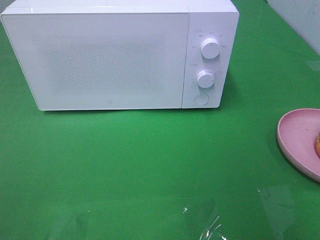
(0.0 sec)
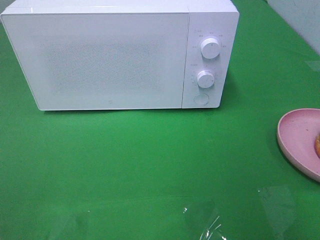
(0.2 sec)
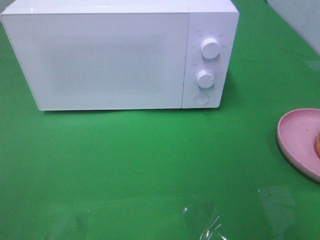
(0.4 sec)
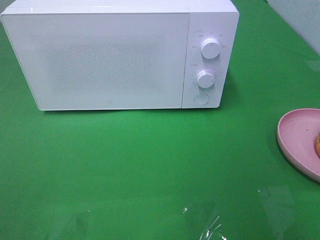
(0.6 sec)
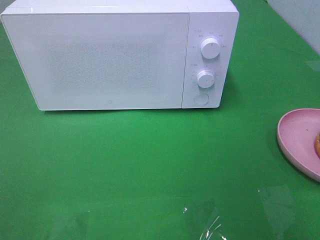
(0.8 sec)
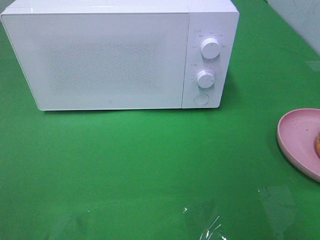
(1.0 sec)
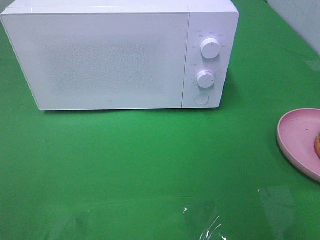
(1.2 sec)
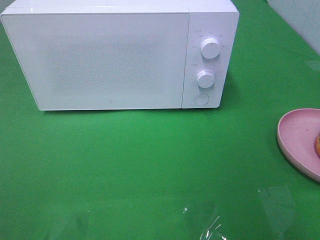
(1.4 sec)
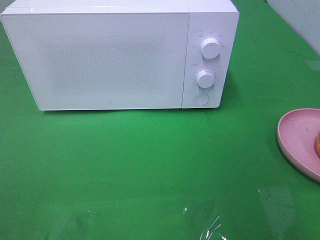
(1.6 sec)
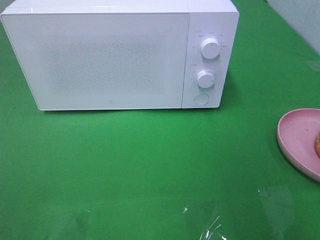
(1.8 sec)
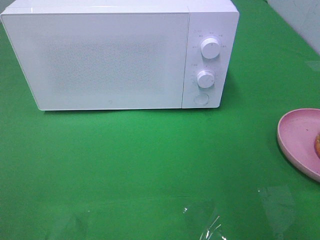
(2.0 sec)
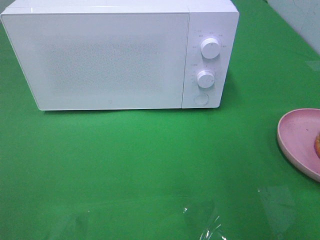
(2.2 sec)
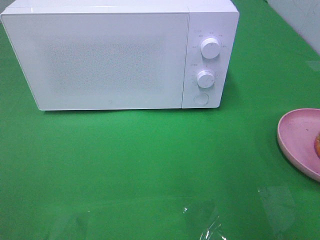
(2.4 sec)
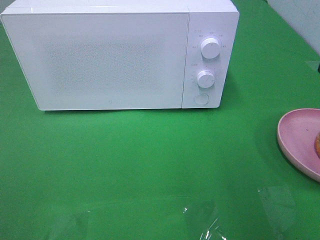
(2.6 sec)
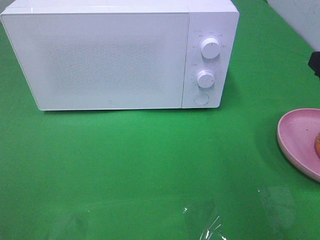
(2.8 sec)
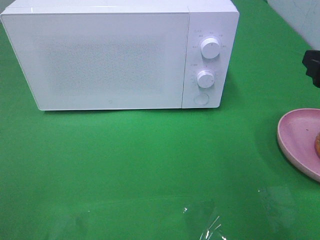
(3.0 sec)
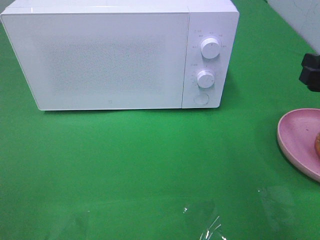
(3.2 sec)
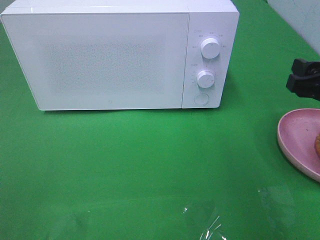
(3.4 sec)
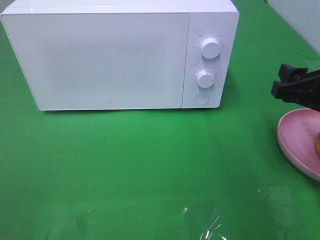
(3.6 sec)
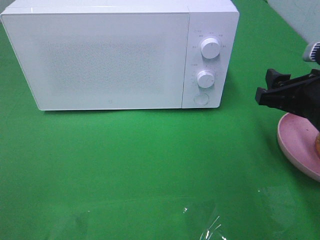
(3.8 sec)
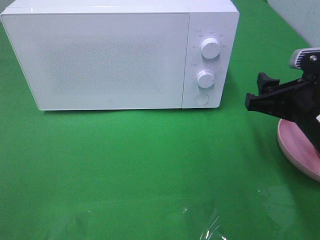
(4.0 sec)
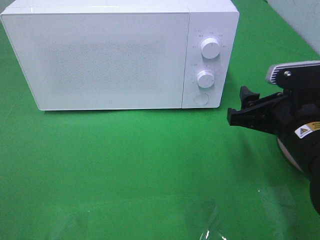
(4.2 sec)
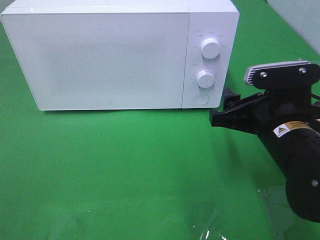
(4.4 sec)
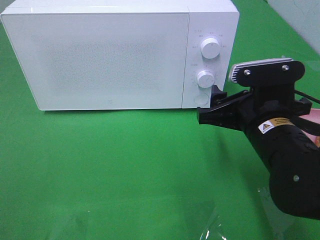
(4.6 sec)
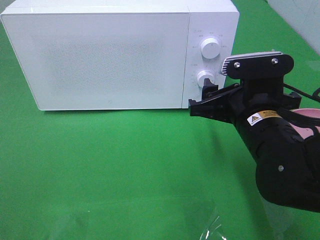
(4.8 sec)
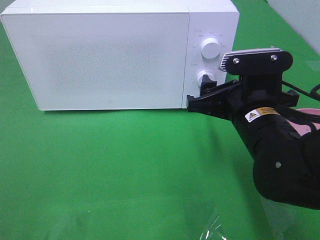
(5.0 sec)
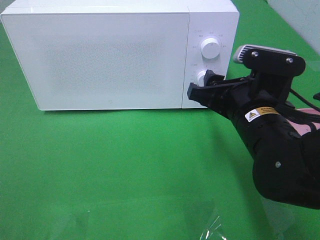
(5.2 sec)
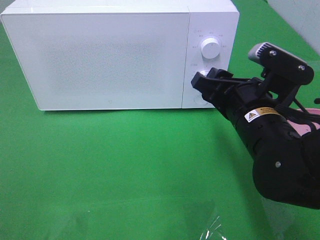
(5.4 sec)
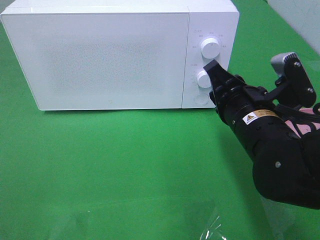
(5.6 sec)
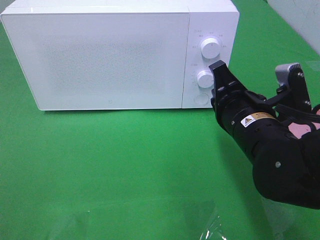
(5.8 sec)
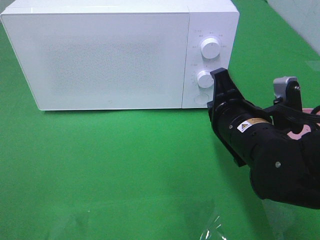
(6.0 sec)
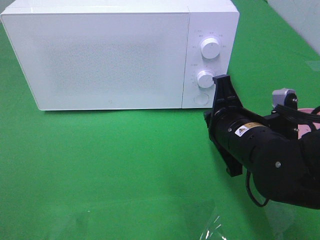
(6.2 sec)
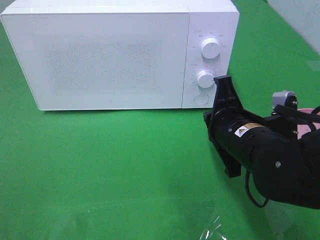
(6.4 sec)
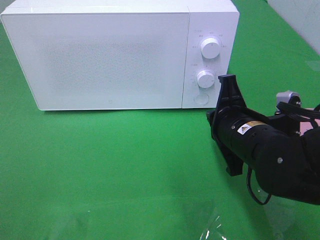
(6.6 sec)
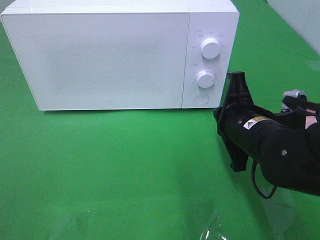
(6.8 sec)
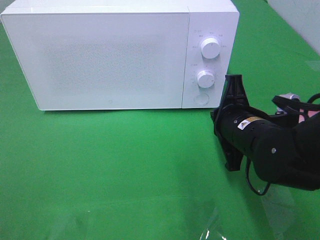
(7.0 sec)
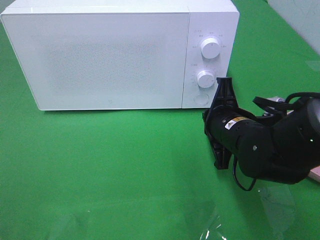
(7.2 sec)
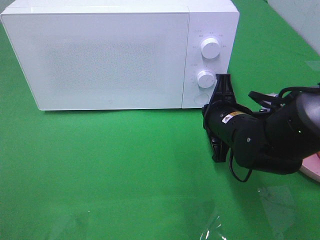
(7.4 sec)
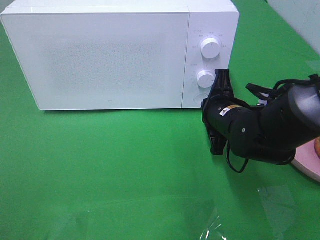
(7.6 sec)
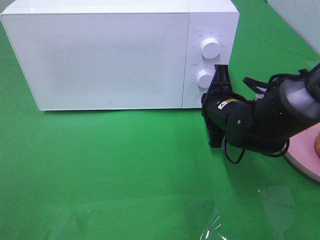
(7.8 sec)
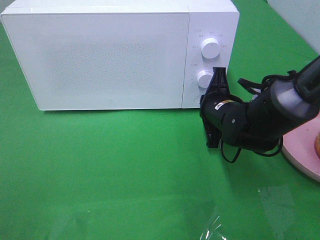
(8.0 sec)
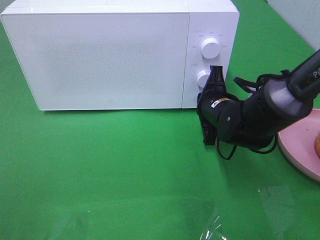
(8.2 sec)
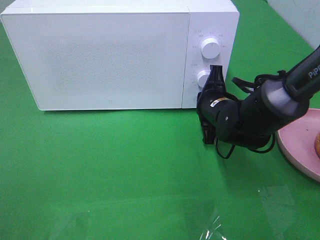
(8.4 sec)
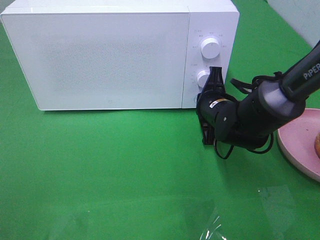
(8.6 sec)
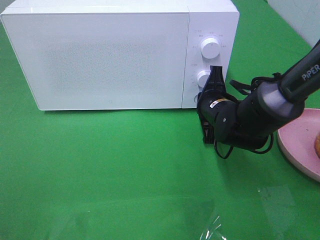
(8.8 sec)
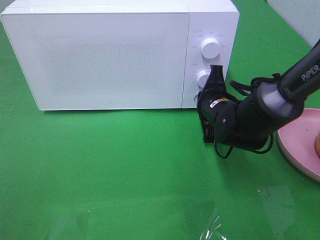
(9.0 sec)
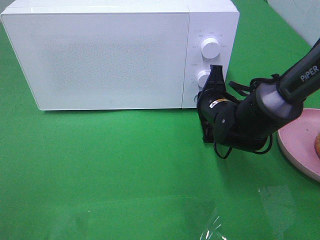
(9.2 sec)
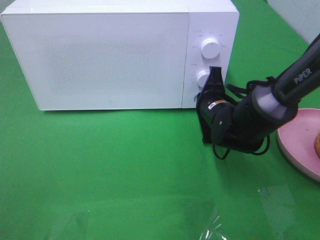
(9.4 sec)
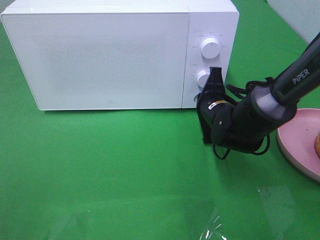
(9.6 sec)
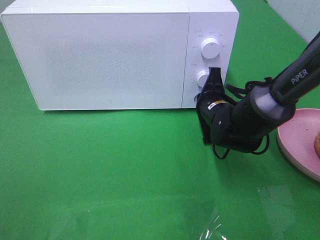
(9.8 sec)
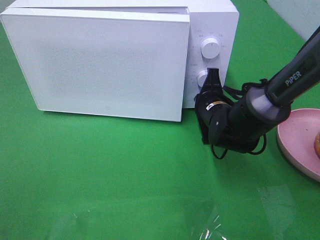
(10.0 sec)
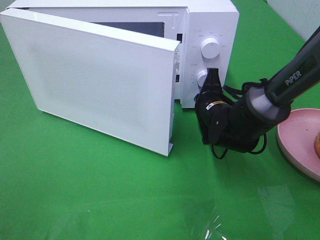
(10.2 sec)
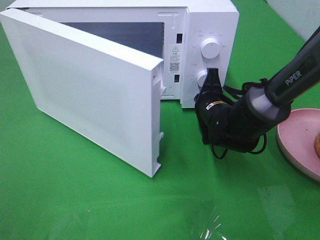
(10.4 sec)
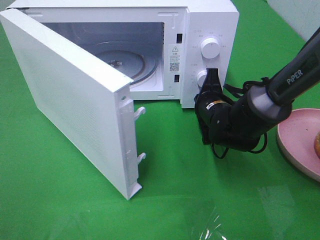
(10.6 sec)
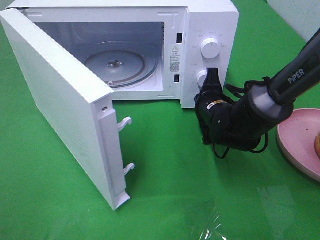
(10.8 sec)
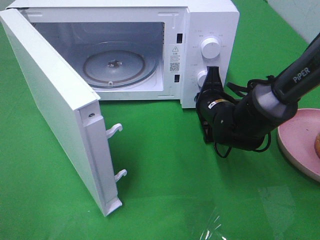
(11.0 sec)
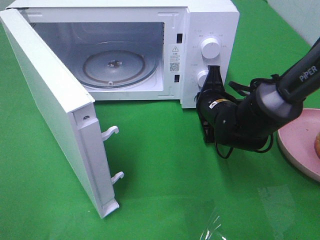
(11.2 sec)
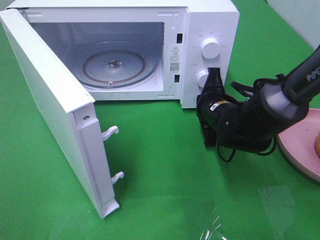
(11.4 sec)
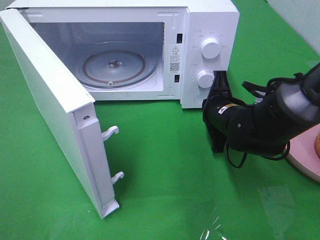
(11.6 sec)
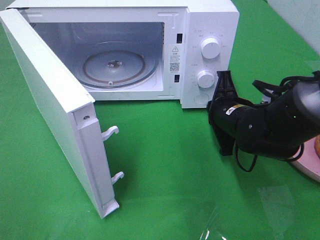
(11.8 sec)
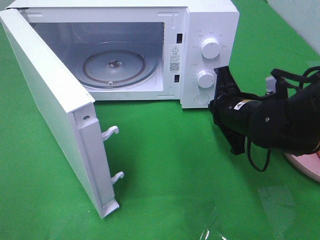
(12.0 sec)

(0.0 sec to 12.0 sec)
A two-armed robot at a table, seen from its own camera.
Task of the whole recording: Heat the burger.
Step, 0.0 sec - 12.0 sec: Right hand: press the switch.
1.6 sec - 3.0 sec: The right gripper is displaced forward and downward by about 15 cm.
3.0 sec - 4.4 sec: The right gripper heads to the left and downward, covering about 15 cm.
4.4 sec - 6.0 sec: The right gripper closes up.
6.0 sec - 7.6 sec: The right gripper goes some 5 cm forward.
7.6 sec - 9.0 sec: The grippers make only small movements.
10.4 sec - 12.0 sec: The right gripper travels backward and upward by roughly 10 cm.

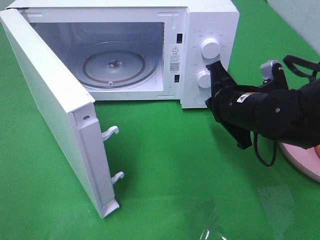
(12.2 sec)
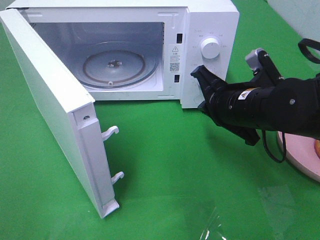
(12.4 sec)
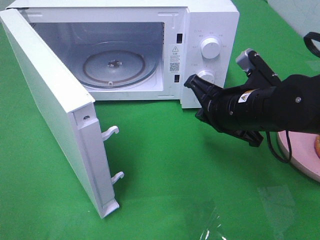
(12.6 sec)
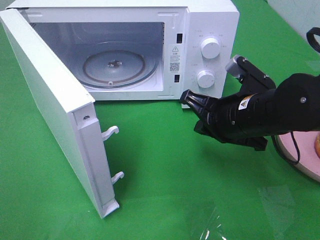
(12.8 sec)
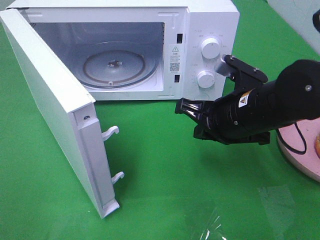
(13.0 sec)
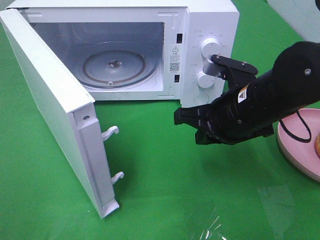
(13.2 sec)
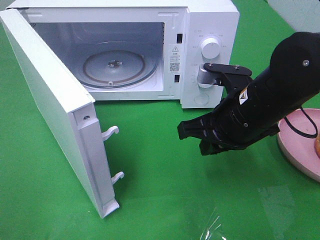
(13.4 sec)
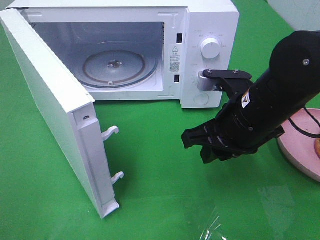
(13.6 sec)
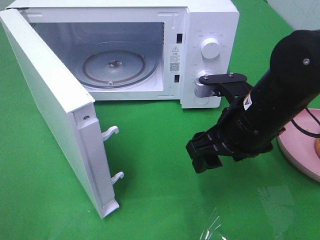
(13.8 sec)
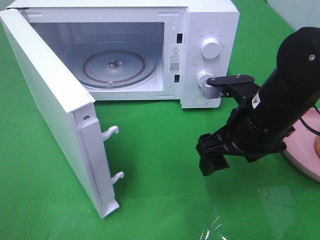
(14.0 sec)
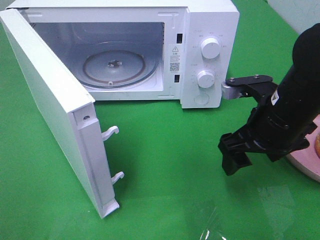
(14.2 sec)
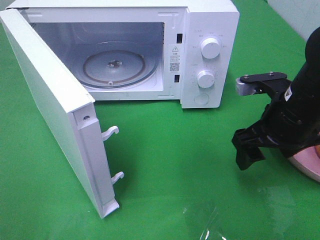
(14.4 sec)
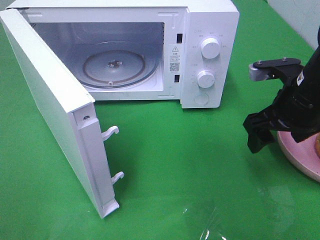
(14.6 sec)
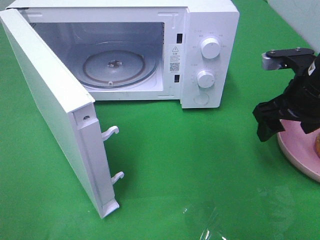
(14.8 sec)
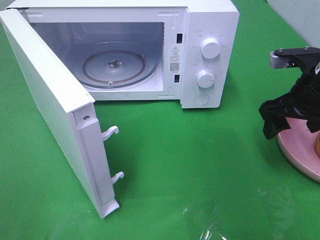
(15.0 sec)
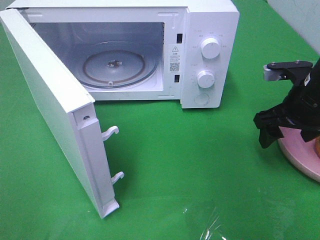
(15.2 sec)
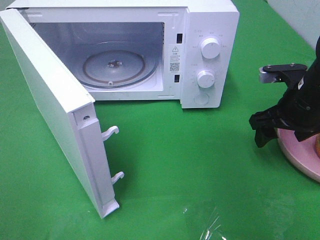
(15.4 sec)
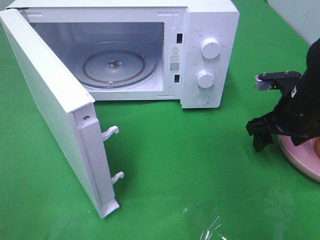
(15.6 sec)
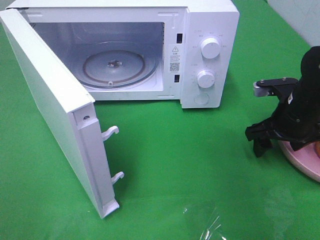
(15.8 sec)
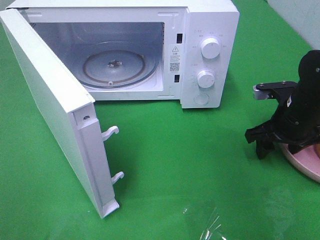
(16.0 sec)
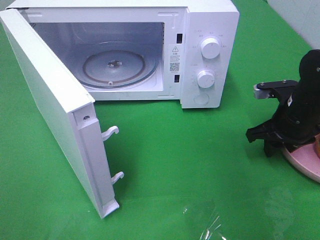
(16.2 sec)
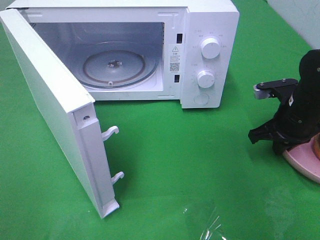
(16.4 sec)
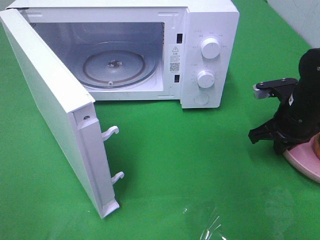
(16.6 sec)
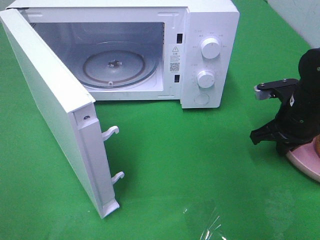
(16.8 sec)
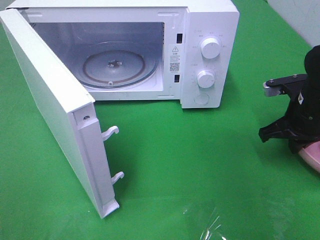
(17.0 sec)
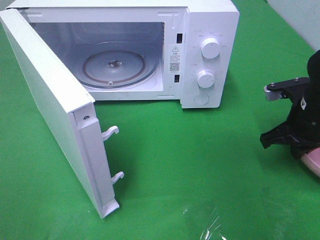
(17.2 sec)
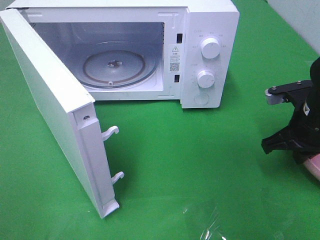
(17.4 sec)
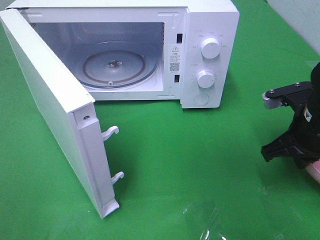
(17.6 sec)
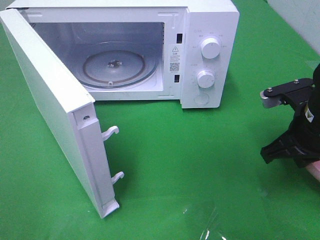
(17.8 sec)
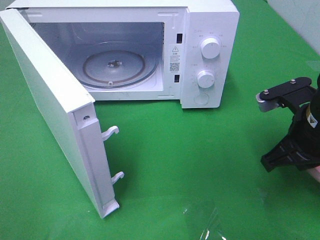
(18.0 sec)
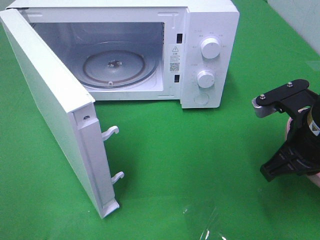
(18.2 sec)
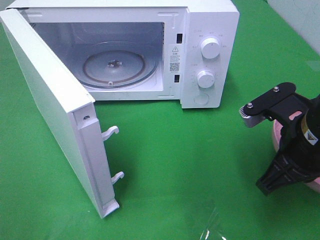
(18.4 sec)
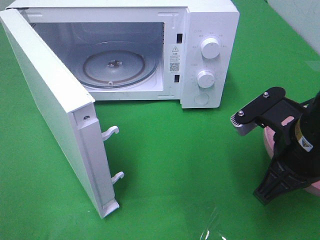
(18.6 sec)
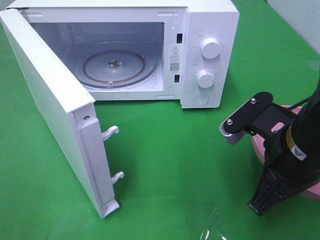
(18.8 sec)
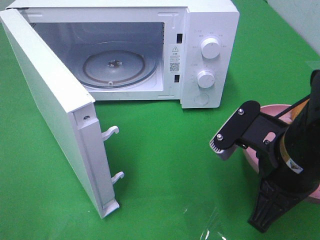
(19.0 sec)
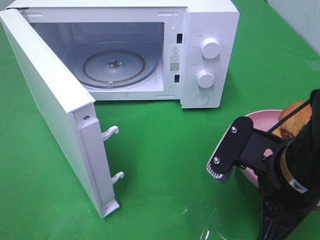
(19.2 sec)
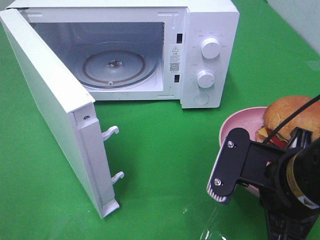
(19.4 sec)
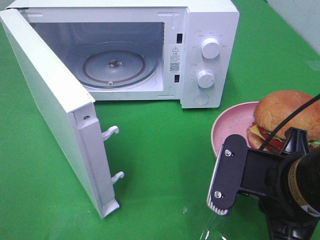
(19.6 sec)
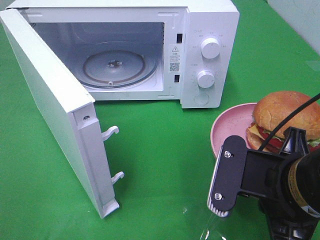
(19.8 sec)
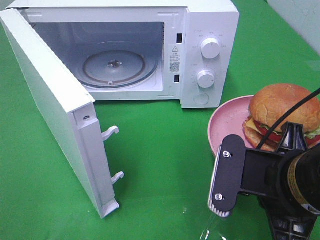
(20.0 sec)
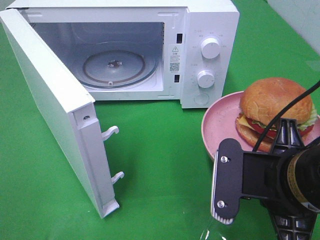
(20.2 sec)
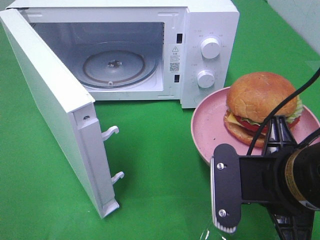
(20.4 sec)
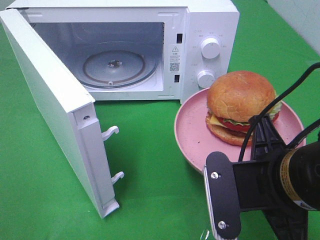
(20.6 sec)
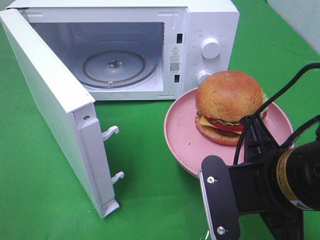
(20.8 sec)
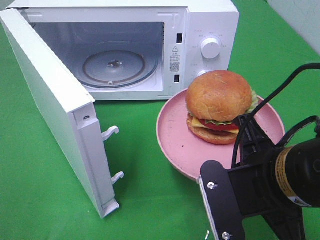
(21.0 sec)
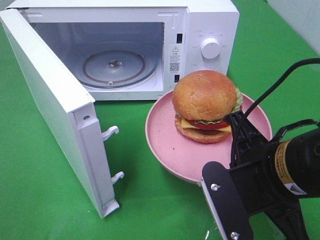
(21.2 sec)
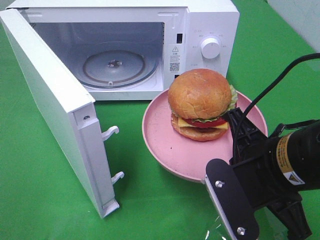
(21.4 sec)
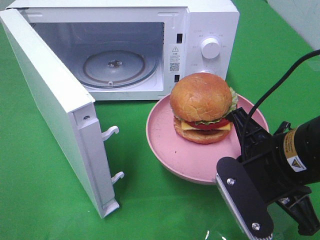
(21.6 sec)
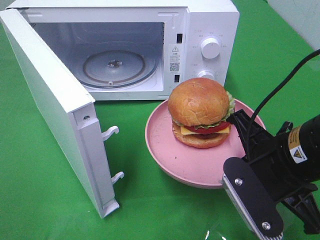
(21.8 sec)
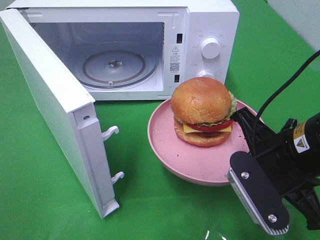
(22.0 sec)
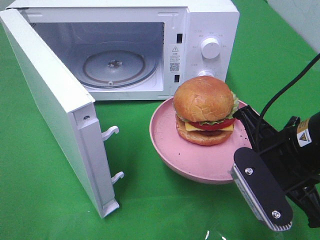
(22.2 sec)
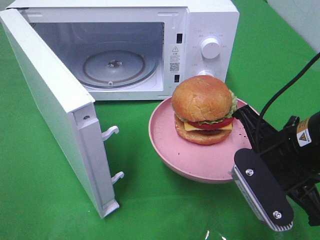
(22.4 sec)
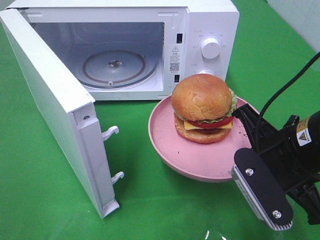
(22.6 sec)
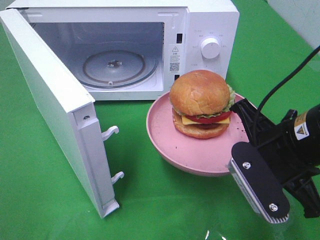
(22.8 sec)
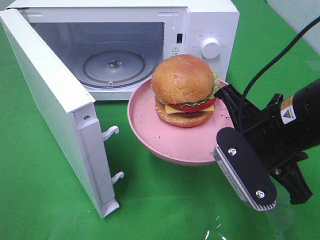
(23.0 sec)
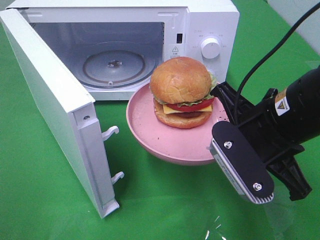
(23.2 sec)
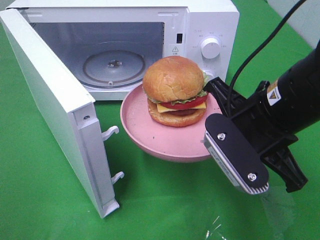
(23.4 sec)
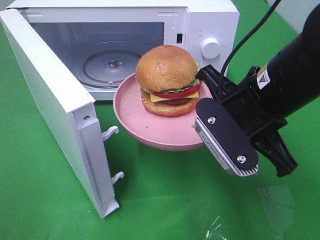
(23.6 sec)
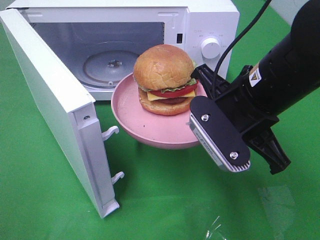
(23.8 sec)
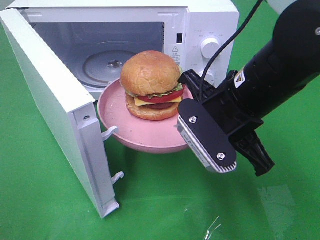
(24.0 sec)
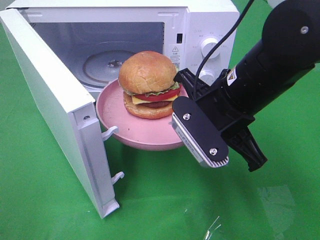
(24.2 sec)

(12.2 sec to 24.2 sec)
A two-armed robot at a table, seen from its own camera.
Task of the whole recording: Heat the burger.
Step, 12.2 sec - 16.8 sec: Right hand: grab the plate with the hamburger.
12.2 sec - 13.8 sec: The right gripper ends up some 5 cm from where it was, and opens its fingers.
13.8 sec - 15.2 sec: The right gripper travels to the right and forward by roughly 15 cm.
15.2 sec - 16.6 sec: The right gripper shifts by some 5 cm, and closes up.
16.6 sec - 18.2 sec: The right gripper is displaced backward and upward by some 10 cm.
18.2 sec - 19.8 sec: The right gripper heads backward and to the left, covering about 10 cm.
21.2 sec - 22.6 sec: The right gripper ends up some 5 cm from where it was.
22.6 sec - 24.2 sec: The right gripper heads to the left and forward, covering about 10 cm.
